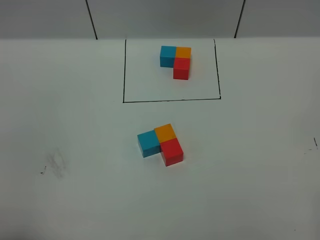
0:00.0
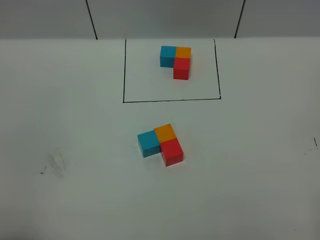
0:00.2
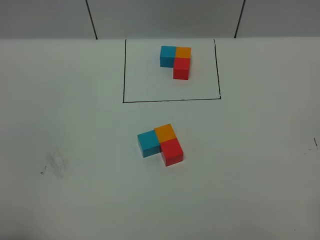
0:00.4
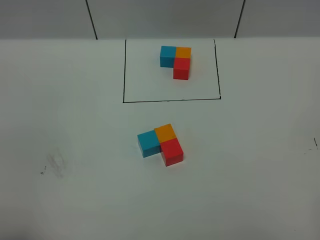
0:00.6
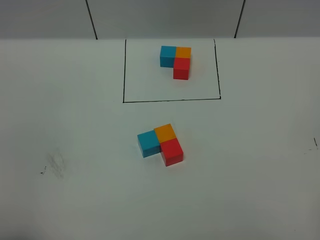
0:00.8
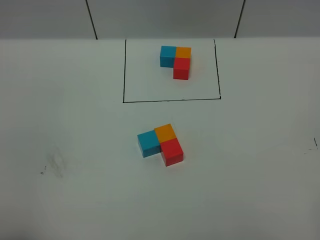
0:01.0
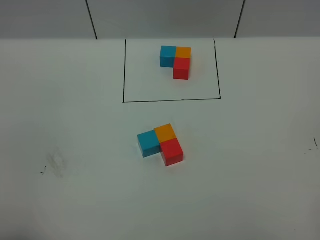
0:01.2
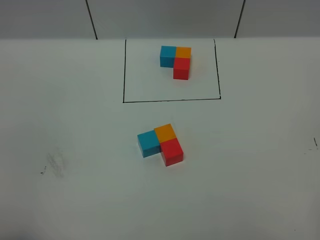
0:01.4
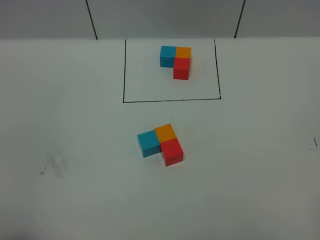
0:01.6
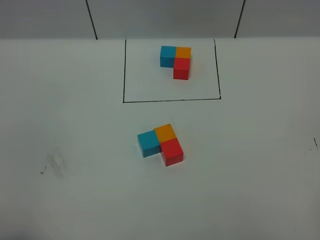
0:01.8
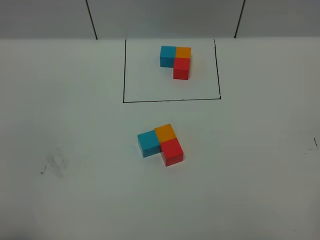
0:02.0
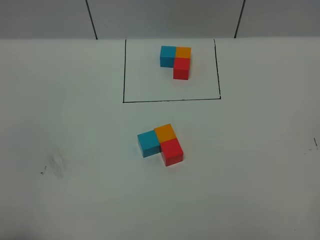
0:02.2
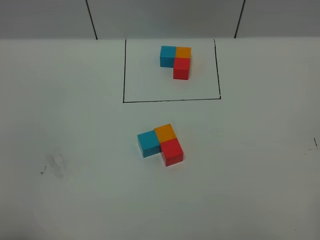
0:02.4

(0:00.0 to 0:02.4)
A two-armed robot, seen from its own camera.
Task of the whole recording: According to the building block template in front, assemble the scattered blocks together.
0:01.2 - 0:02.4: Both grippers stay put.
